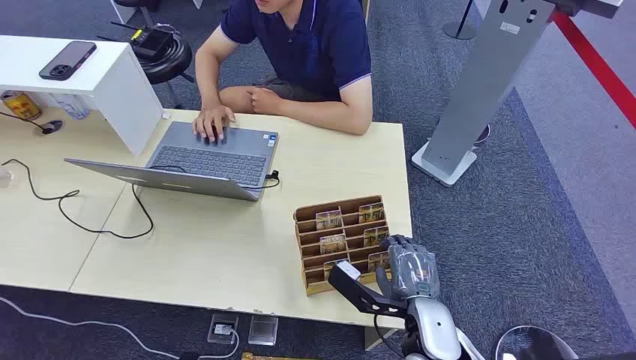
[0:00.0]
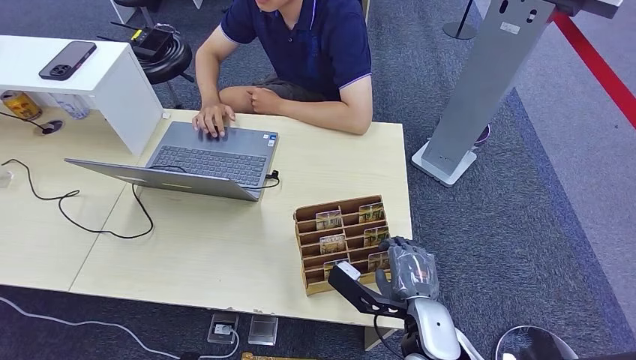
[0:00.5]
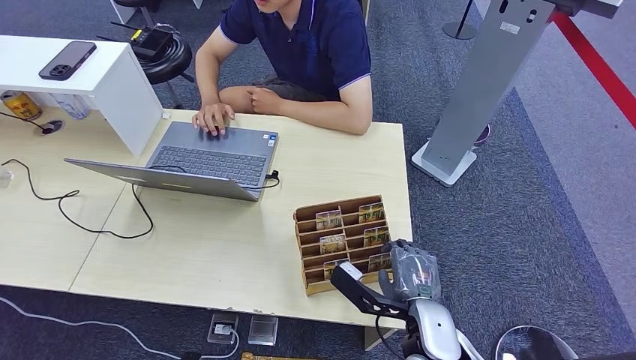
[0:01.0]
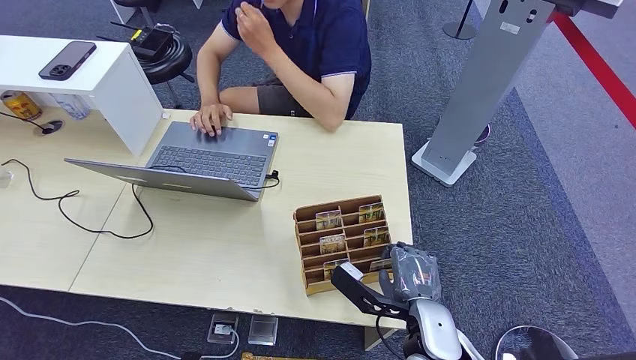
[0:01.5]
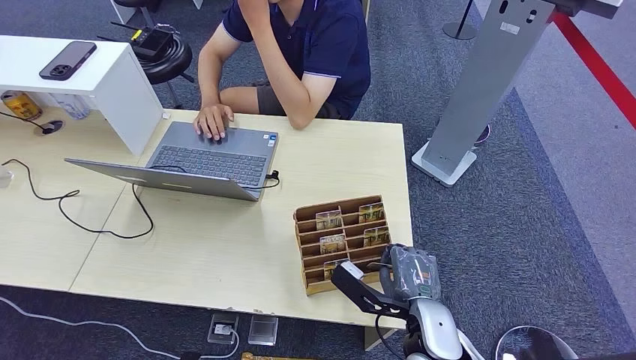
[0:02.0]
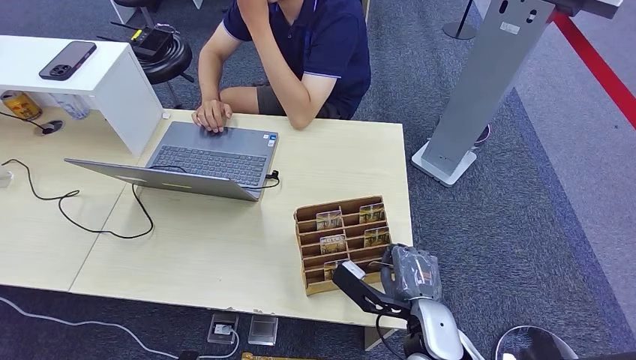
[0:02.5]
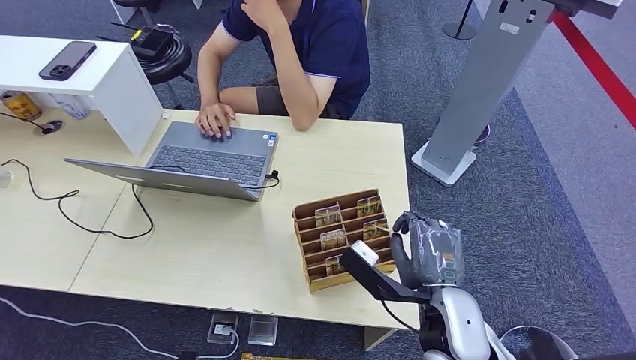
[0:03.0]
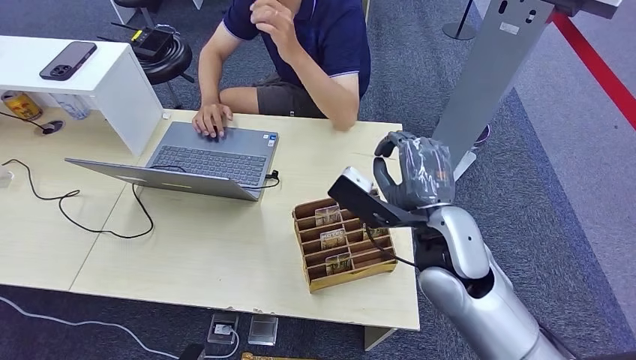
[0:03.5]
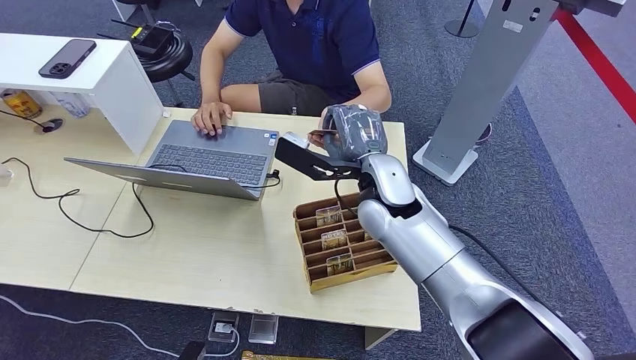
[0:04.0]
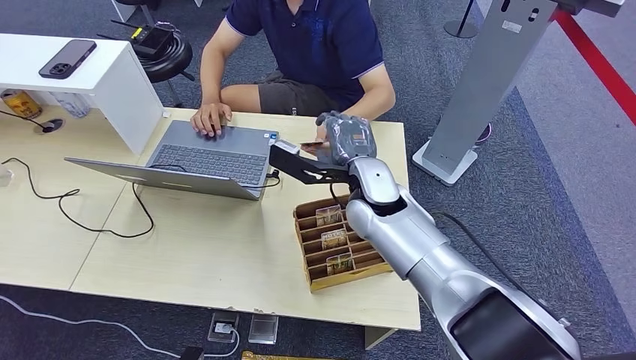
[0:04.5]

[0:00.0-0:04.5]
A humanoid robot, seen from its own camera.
Step, 0:00.0 to 0:03.0: Pick up the key card from the card box.
Step, 0:03.5 to 0:04.5: Hand the key card to the target.
